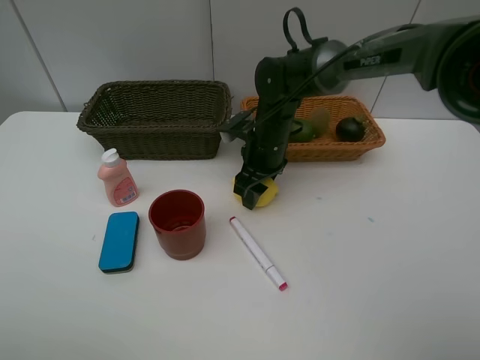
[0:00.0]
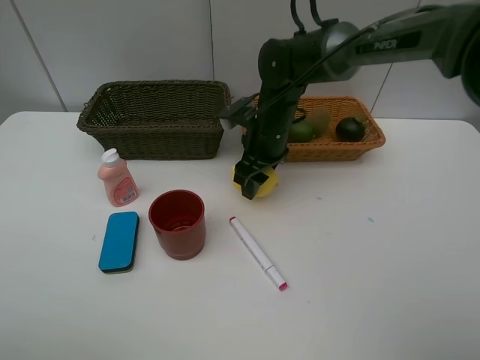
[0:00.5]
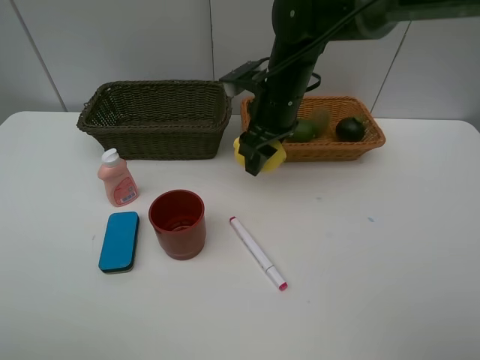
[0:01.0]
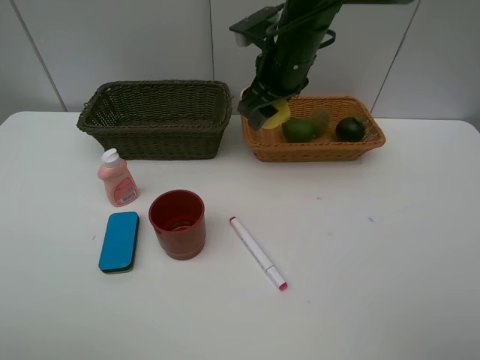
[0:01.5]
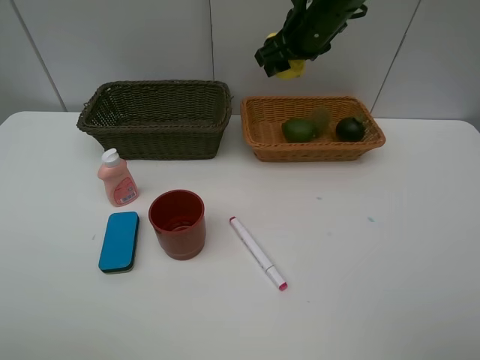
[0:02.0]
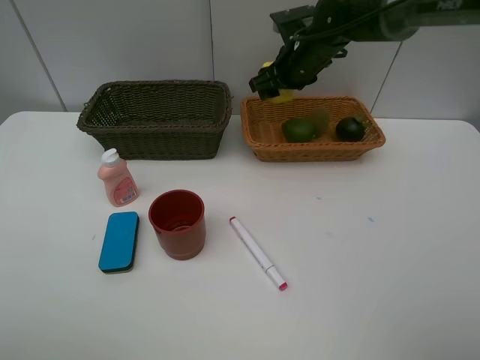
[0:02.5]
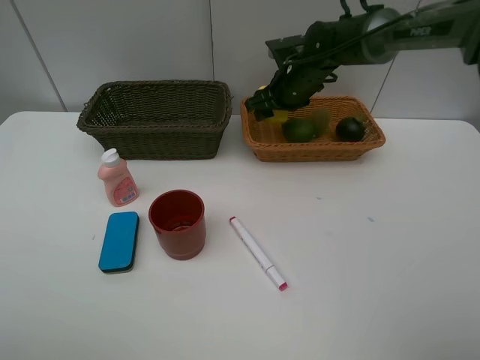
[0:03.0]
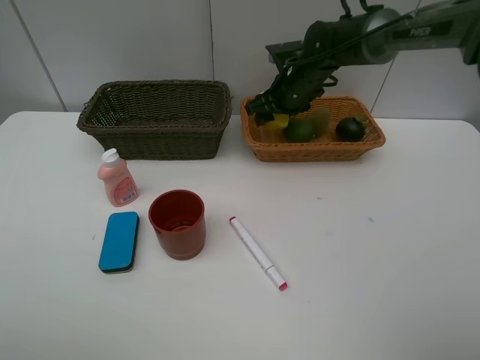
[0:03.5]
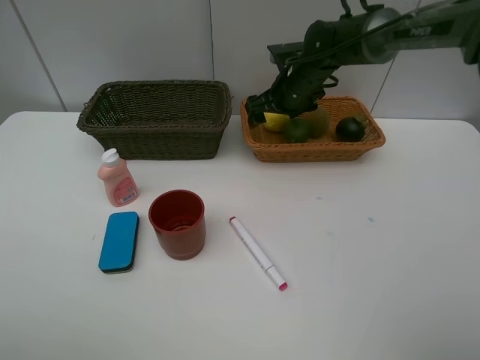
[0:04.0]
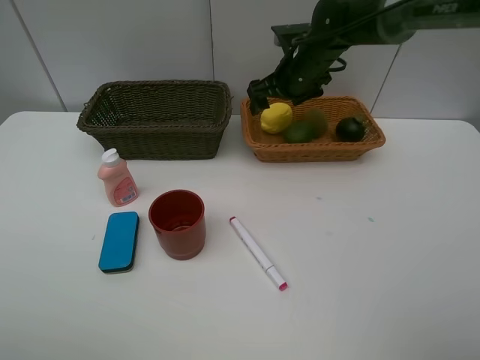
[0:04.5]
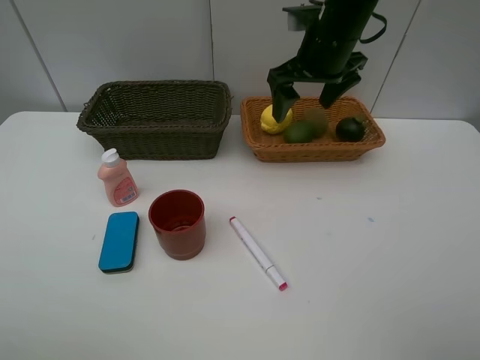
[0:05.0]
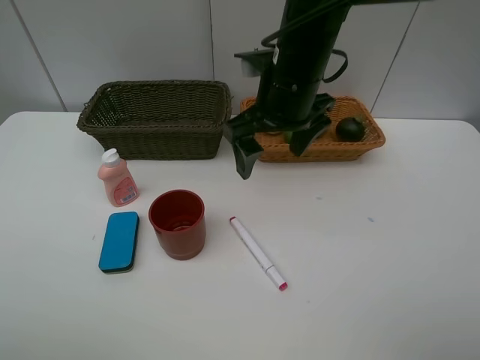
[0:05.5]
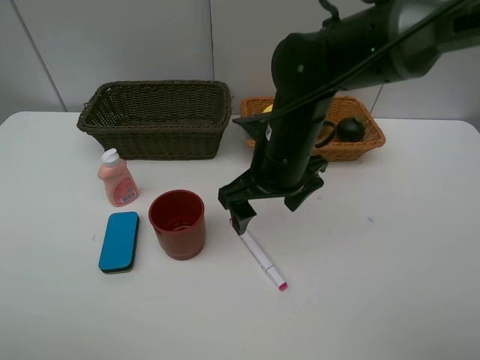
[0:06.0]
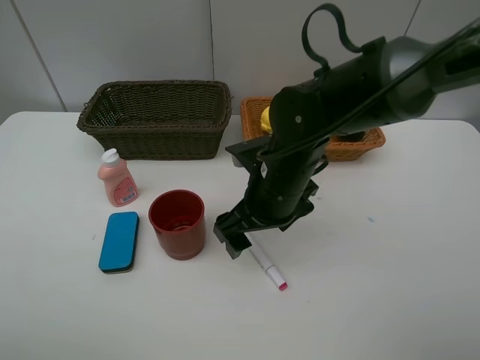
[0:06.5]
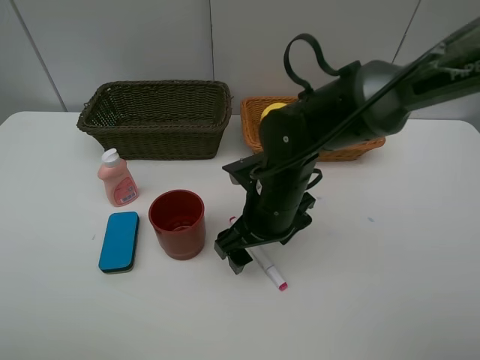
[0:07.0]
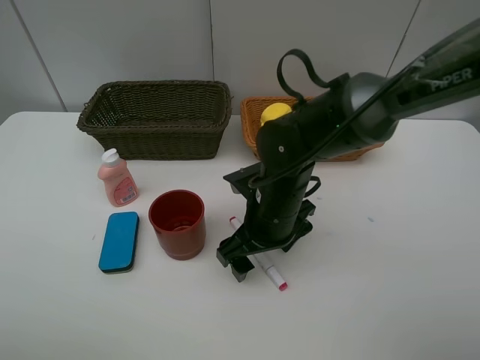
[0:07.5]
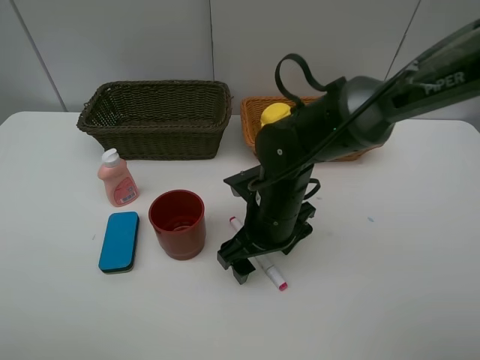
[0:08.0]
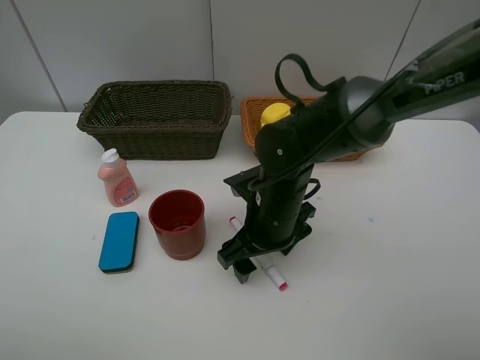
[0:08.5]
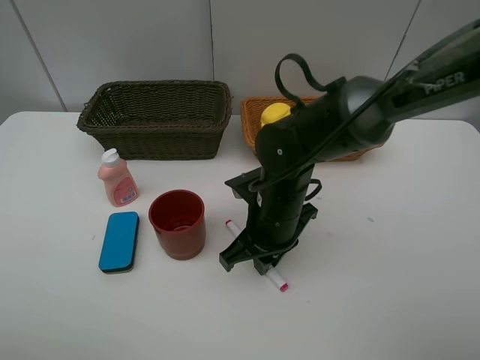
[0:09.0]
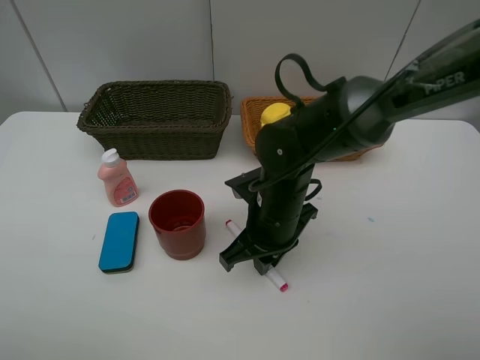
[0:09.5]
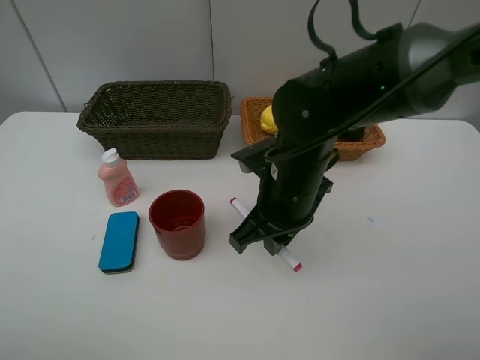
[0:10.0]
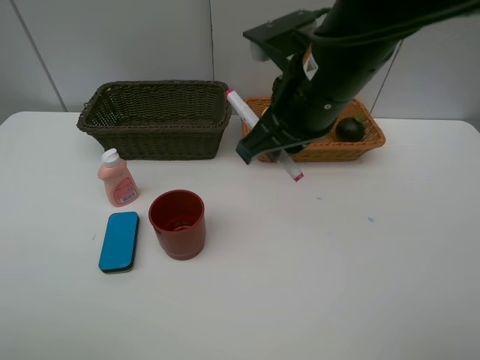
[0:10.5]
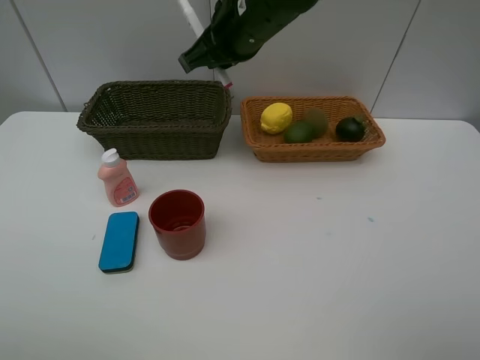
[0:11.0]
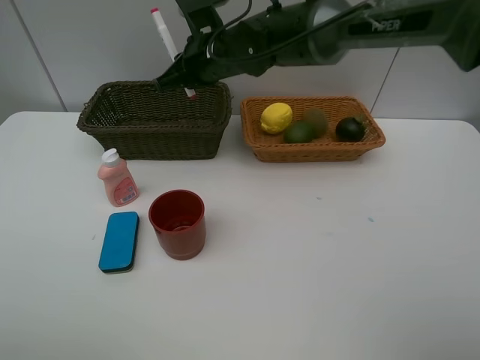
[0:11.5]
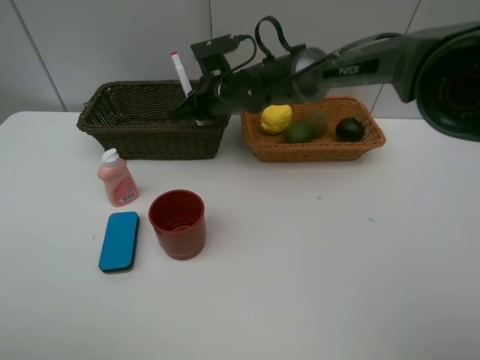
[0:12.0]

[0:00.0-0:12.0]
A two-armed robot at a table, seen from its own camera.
Task of the whole recording: Place multiple objects separately in different baskets.
Step, 0:01.0 to 0:04.5: Place the lemon in the light basket with right gripper.
Step, 0:05.0 to 0:09.5: Pick up pink marker pen with right gripper.
0:00.0 to 0:02.0: The right gripper goes some 15 cm upward.
0:02.0 to 0:04.0: The right gripper shifts about 10 cm downward, and opens up.
0:04.0 to 0:06.0: The right gripper is displaced backward by about 20 cm.
0:06.0 to 0:08.0: The right gripper goes approximately 5 cm downward.
0:08.0 to 0:10.0: The right gripper travels upward by approximately 5 cm, and closes.
0:10.0 to 0:12.0: The right gripper moves forward and to the left, roughly 20 cm.

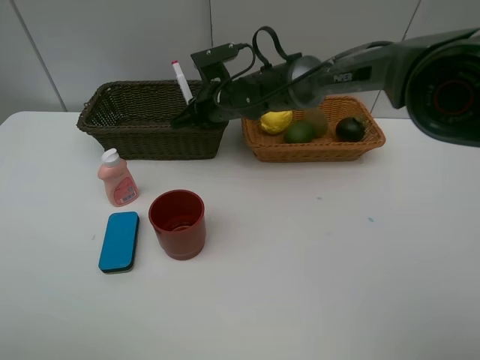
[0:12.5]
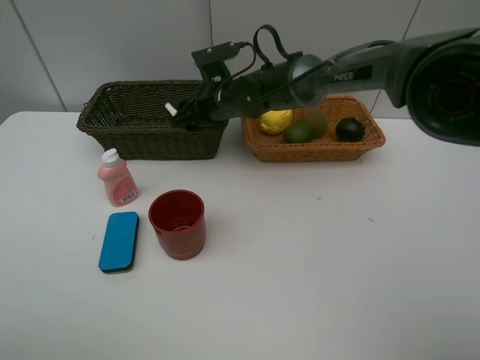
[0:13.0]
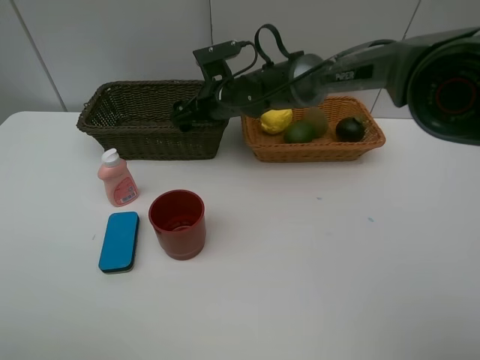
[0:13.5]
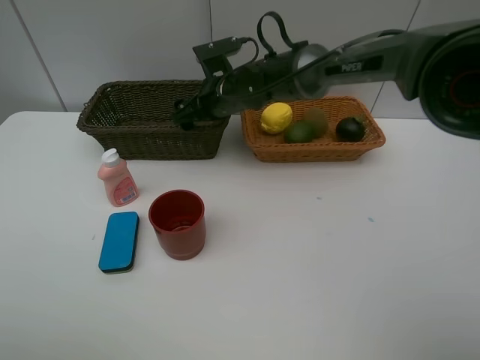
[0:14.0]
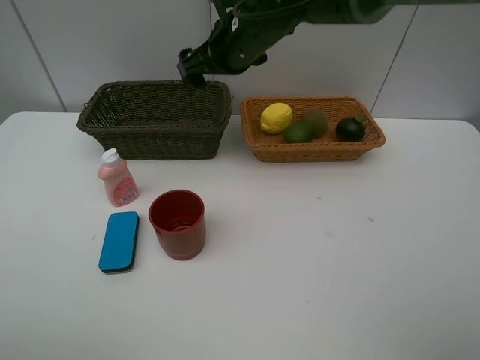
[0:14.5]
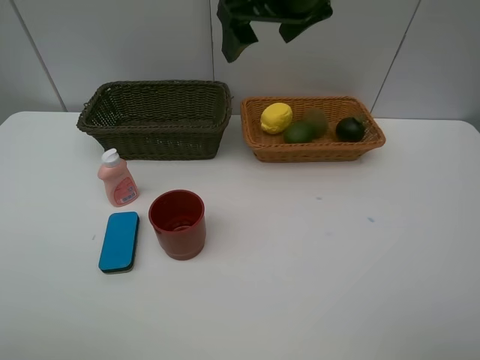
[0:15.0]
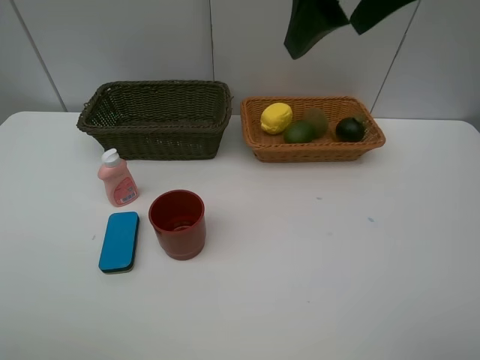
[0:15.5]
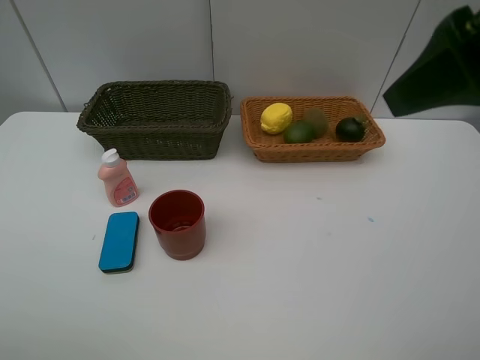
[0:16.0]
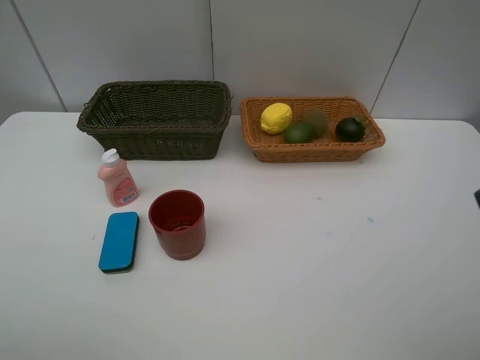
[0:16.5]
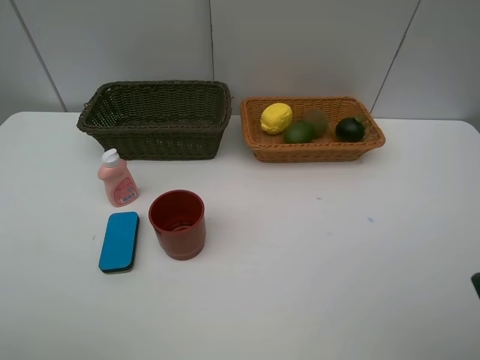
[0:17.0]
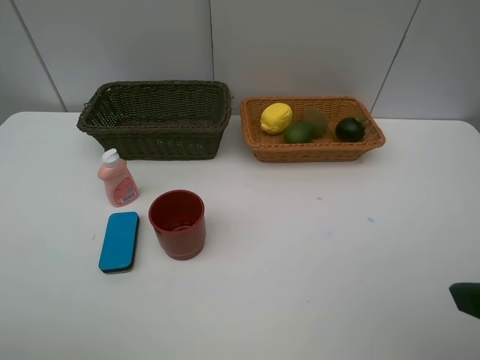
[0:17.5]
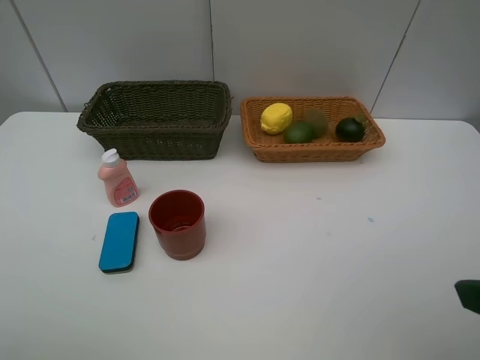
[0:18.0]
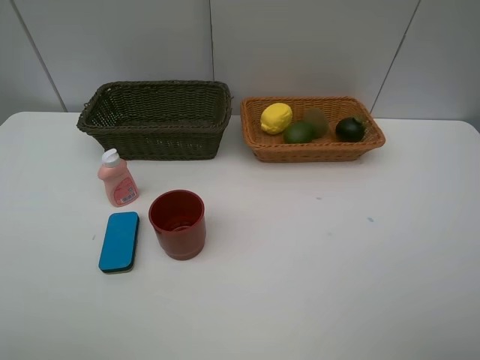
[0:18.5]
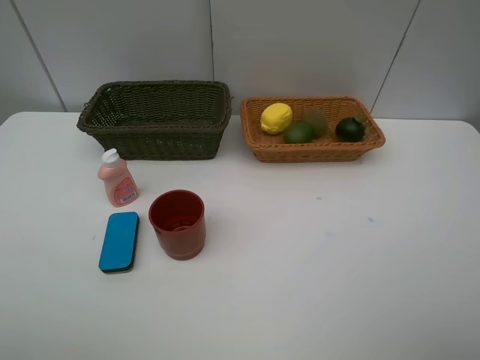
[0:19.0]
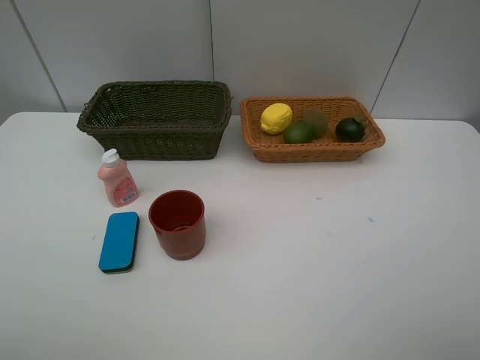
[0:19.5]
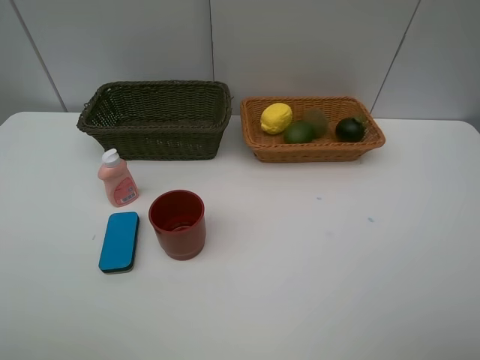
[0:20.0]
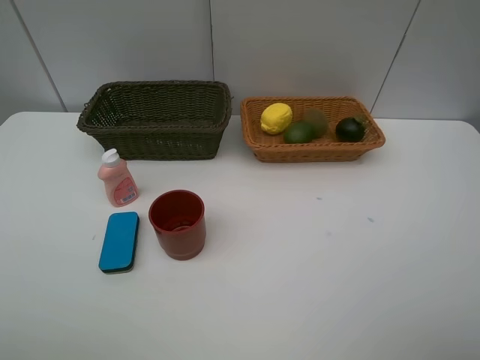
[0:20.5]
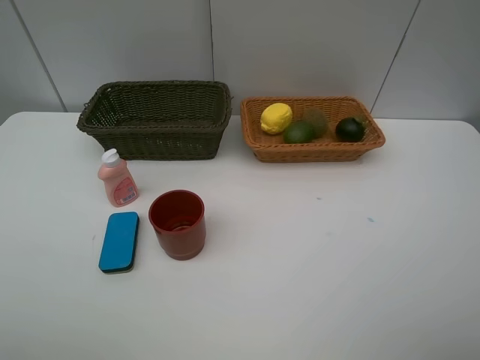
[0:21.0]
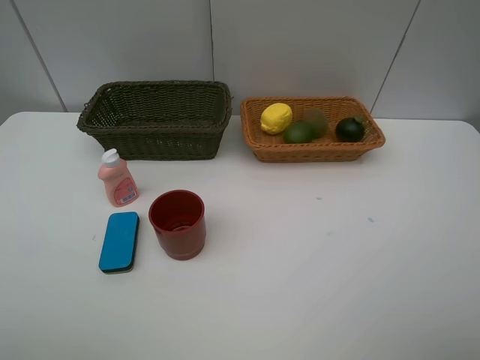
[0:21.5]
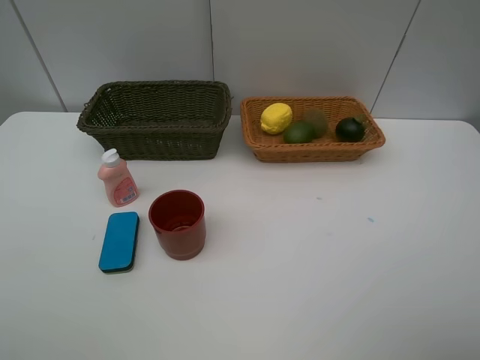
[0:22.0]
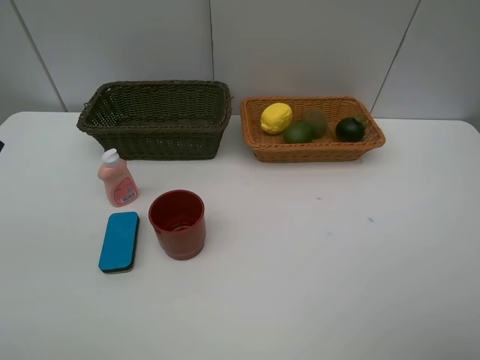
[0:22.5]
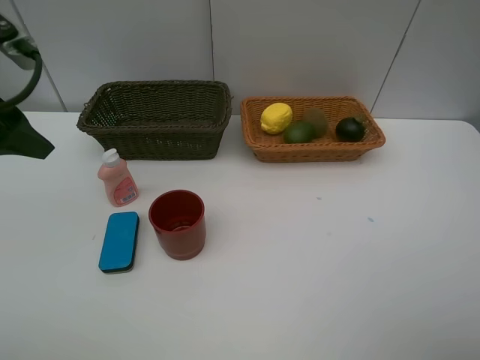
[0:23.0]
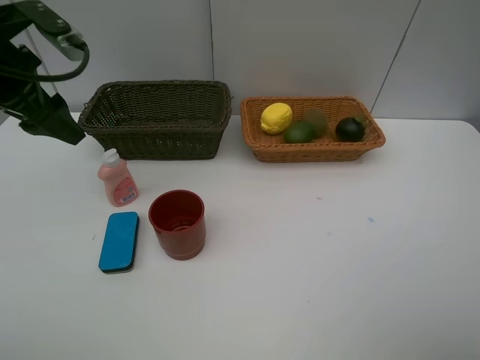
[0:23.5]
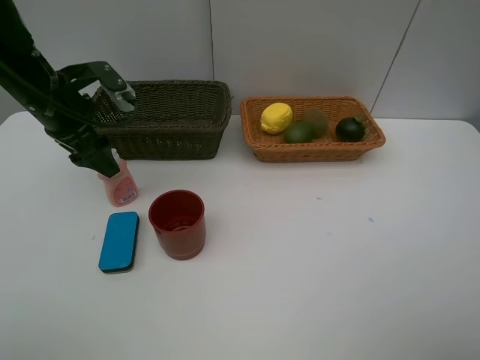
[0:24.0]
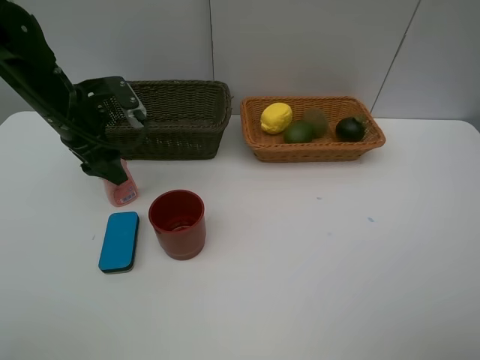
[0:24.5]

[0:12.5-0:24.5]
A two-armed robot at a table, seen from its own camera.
Task of the whole recording: Place multiple objects separately in different baskets.
0:12.5 to 0:14.5: The right gripper moves upward, some 15 cm, and opens up.
0:14.5 to 0:16.5: The right gripper heads backward and to the right, covering approximately 40 cm.
0:22.5 to 0:24.5: The left gripper is displaced forward and downward by roughly 20 cm.

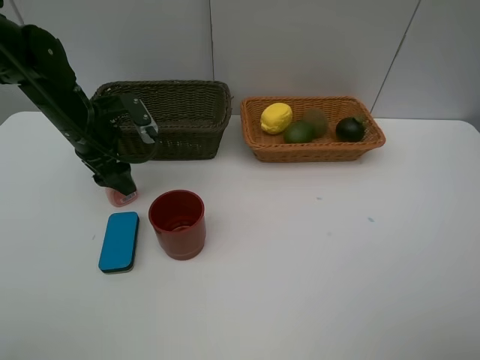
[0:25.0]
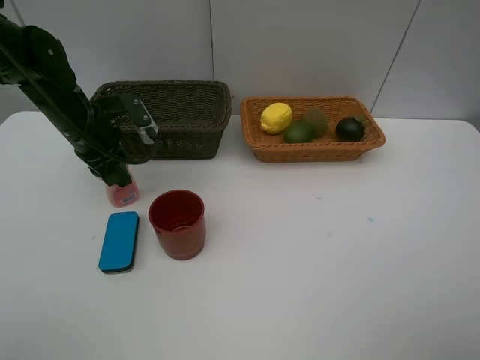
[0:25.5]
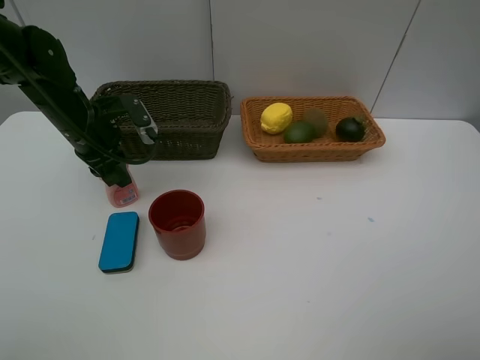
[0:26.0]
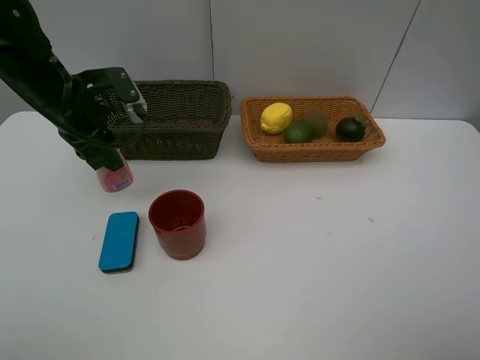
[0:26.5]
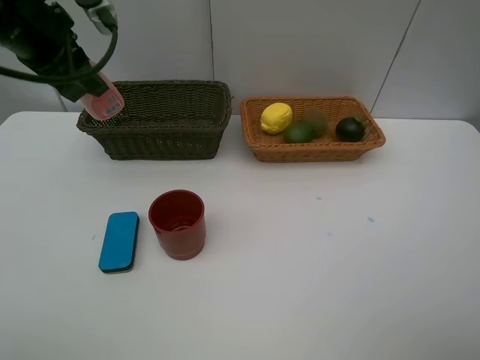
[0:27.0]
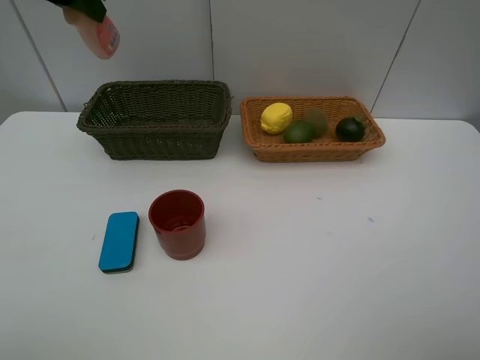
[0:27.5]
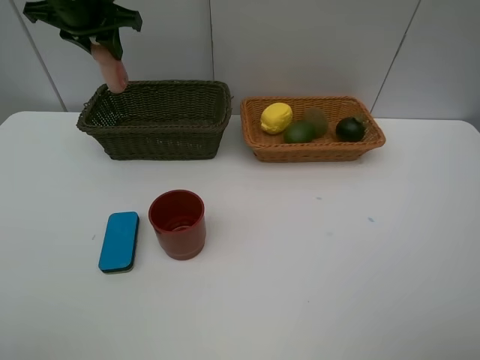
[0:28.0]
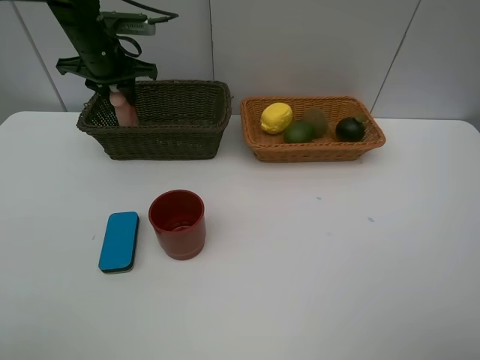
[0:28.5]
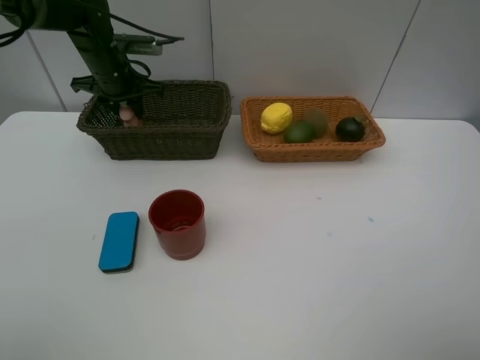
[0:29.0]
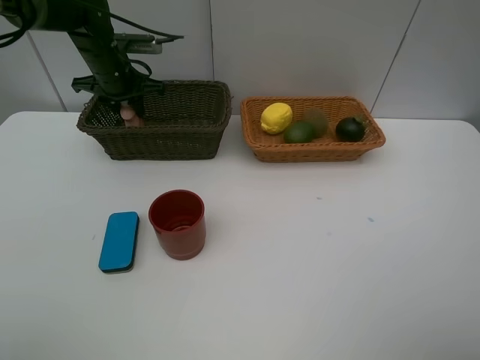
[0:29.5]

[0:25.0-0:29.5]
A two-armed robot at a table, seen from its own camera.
Task of the whole recording: Place multiple objects separately in different baskets.
0:25.0 to 0:27.0: The left gripper moves upward, some 15 cm, and closes its fingers.
0:27.0 to 0:29.5: The left gripper moves forward and downward, roughly 20 cm.
